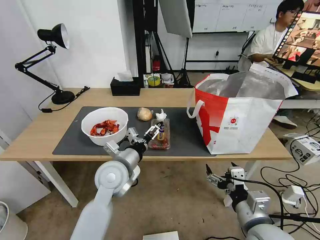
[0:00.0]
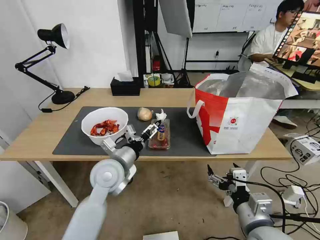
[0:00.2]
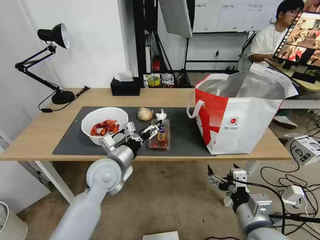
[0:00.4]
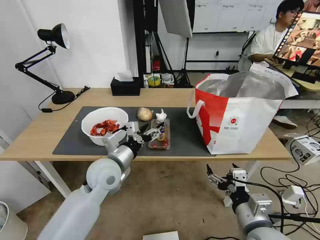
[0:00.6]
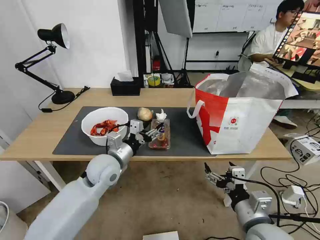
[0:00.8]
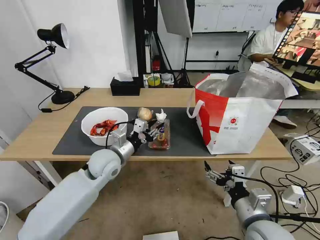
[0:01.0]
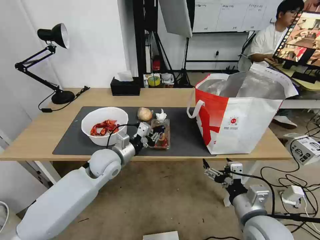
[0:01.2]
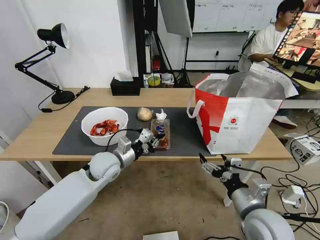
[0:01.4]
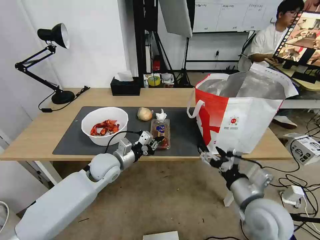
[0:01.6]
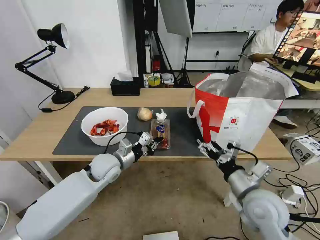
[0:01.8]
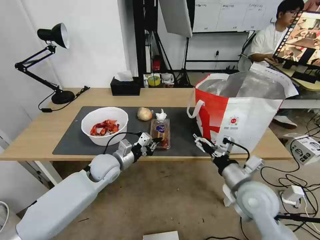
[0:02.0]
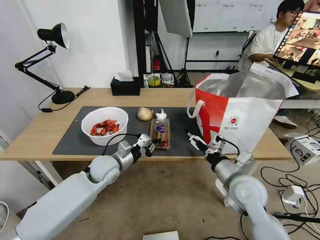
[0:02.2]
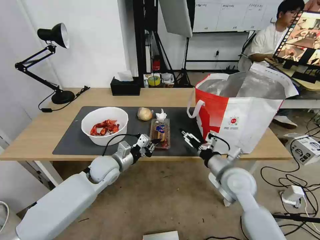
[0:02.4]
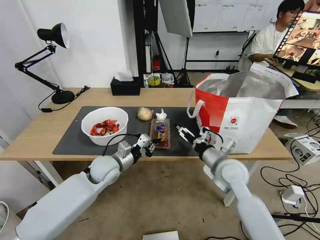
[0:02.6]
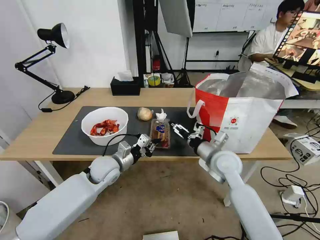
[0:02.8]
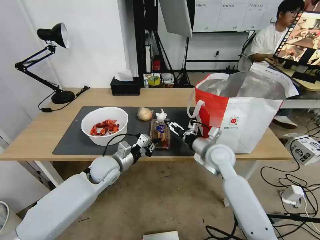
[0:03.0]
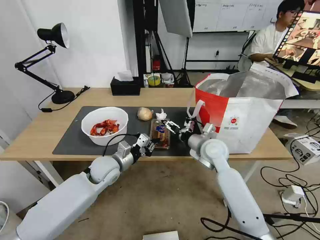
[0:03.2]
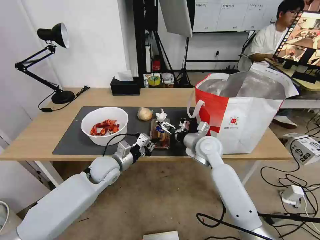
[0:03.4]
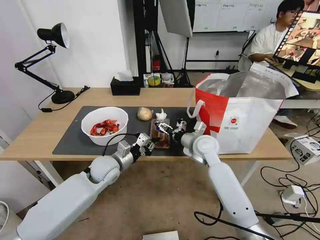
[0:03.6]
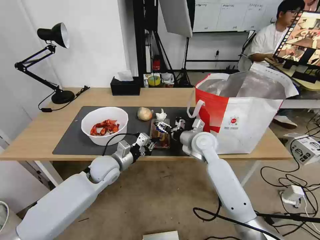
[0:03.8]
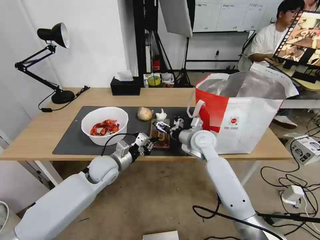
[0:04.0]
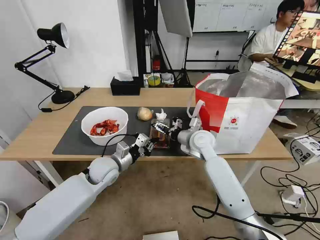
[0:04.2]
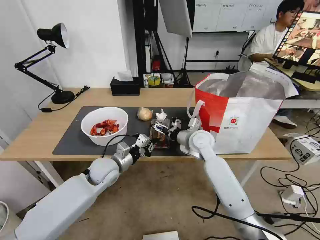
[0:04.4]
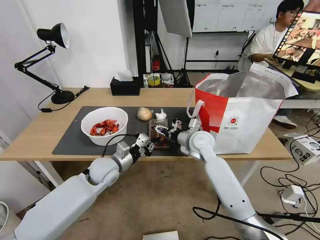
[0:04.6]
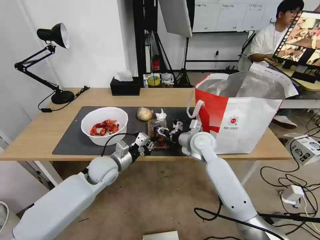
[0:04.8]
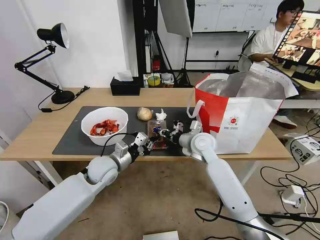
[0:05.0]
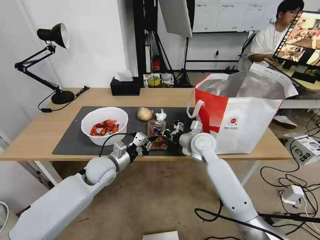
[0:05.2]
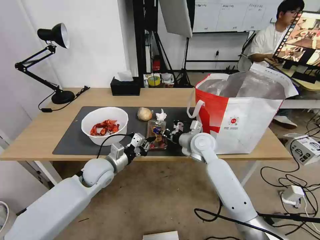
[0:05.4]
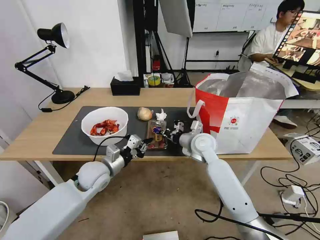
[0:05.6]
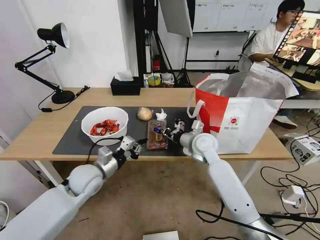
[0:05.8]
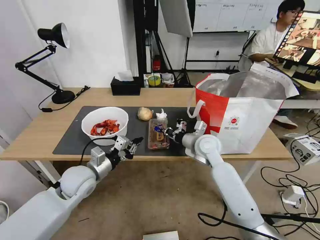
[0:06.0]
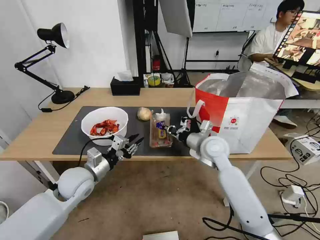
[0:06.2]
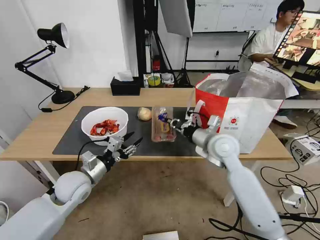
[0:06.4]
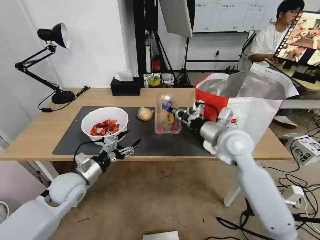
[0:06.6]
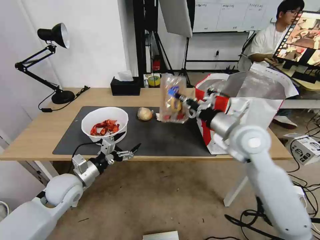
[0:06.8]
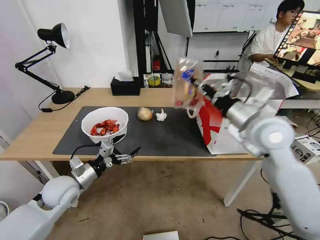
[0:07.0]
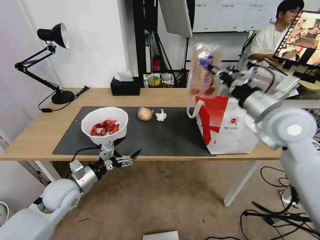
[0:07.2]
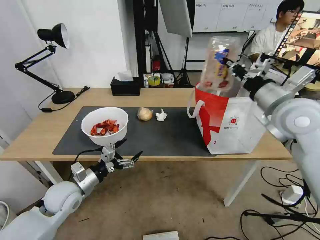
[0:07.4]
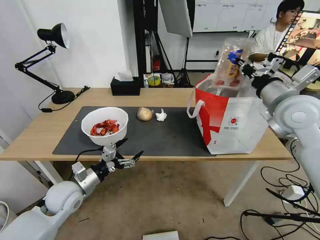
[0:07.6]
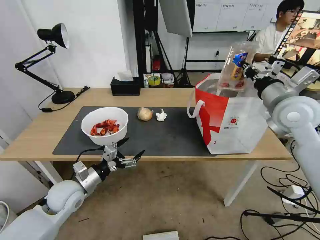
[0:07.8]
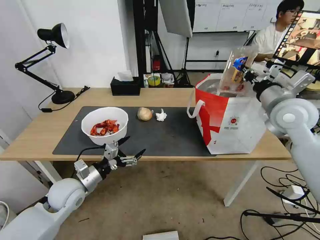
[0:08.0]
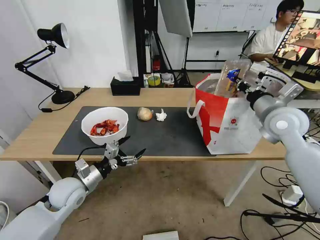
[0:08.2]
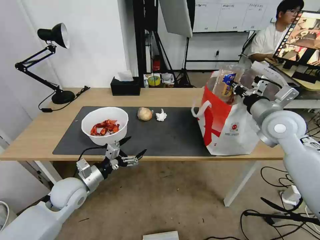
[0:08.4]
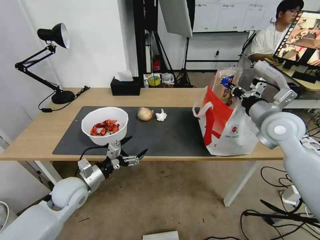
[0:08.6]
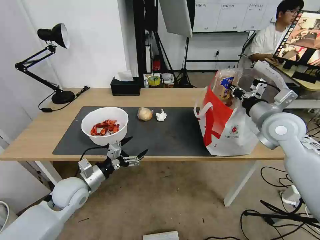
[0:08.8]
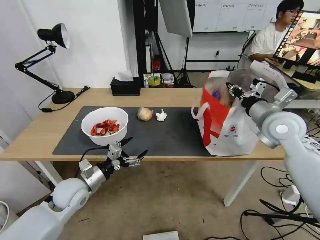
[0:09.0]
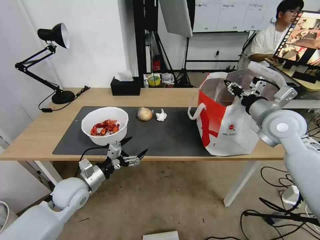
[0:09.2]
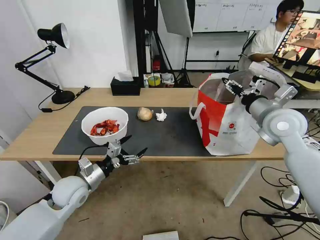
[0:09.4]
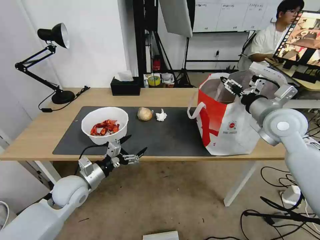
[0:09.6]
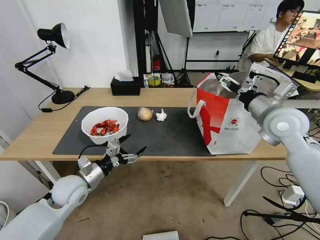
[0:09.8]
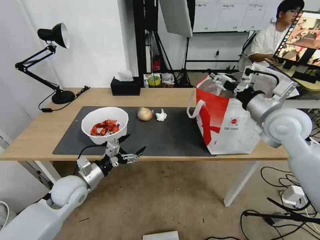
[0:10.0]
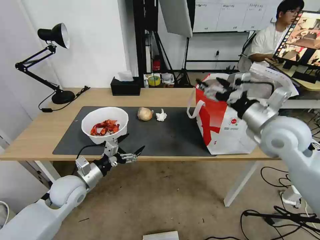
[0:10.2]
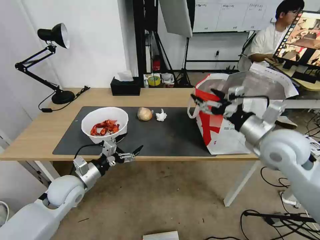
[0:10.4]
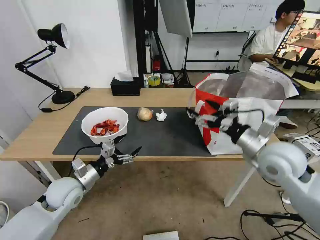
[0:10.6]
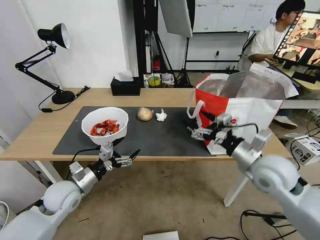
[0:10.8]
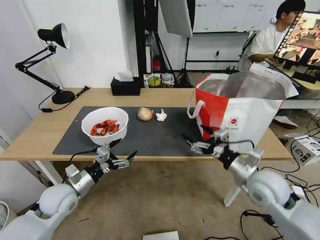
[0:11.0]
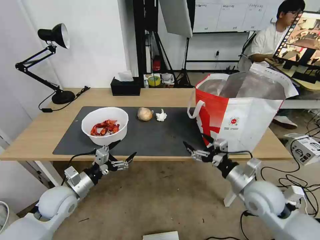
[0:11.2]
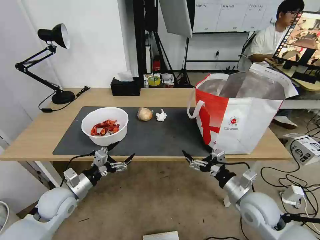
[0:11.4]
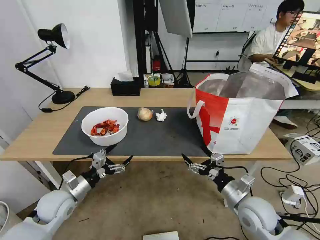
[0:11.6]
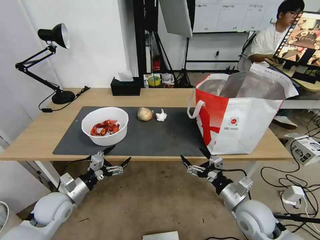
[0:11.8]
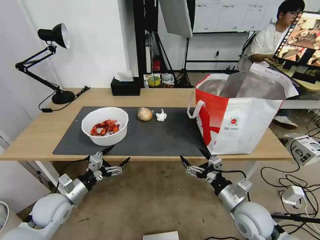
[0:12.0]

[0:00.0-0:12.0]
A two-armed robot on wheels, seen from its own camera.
Task of the whole recording: Pick up the trash from the table and place it into the takeout bag.
0:00.0 to 0:01.6: Both grippers move forward, some 5 cm. The left gripper closes.
0:01.6 to 0:03.0: The right gripper moves forward, about 20 cm.
0:03.0 to 0:04.4: The right gripper heads forward, covering about 5 cm.
0:04.4 to 0:06.0: The right gripper closes its fingers. Meanwhile the left gripper heads to the left and backward, covering some 10 cm.
0:06.0 to 0:07.6: The left gripper changes place by approximately 5 cm, and opens up. Meanwhile the right gripper goes about 25 cm upward and to the right.
0:07.6 to 0:09.0: The right gripper is displaced downward by roughly 5 cm.
0:09.0 to 0:10.4: The right gripper moves backward, about 5 cm, and opens up.
0:10.4 to 0:12.0: The right gripper moves downward and backward, some 25 cm. Meanwhile the left gripper changes place by approximately 5 cm.

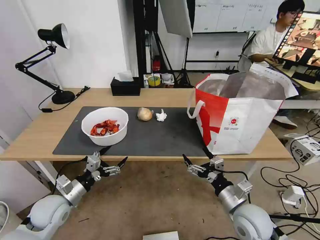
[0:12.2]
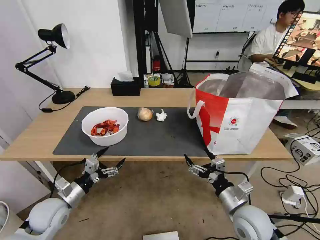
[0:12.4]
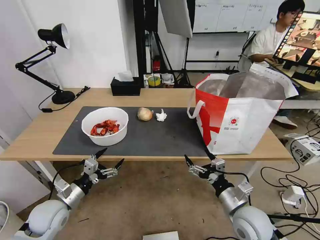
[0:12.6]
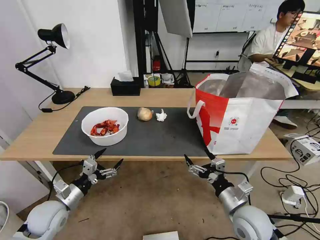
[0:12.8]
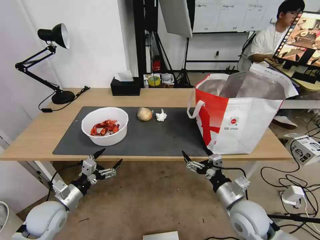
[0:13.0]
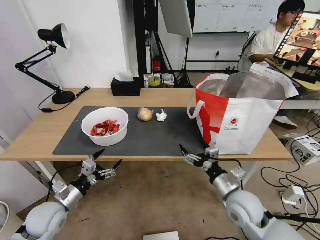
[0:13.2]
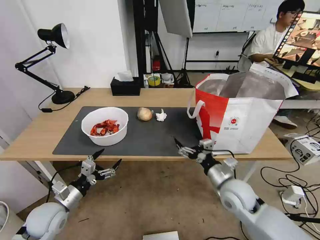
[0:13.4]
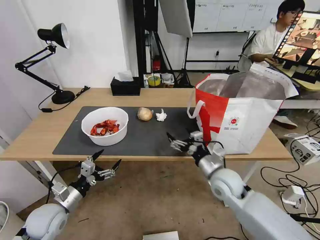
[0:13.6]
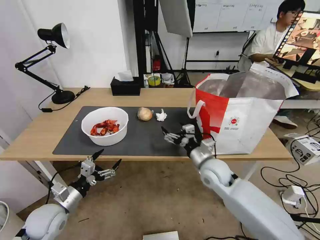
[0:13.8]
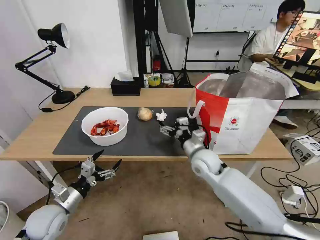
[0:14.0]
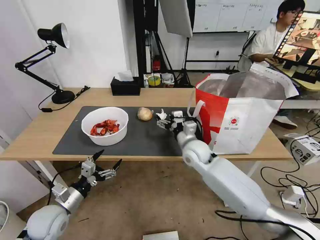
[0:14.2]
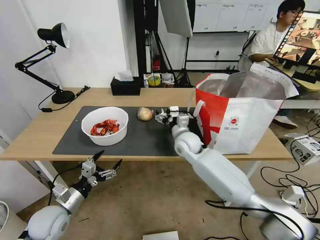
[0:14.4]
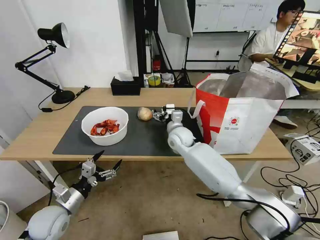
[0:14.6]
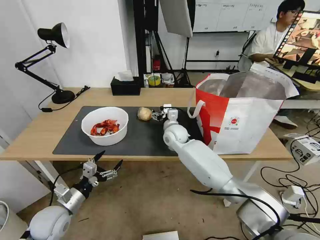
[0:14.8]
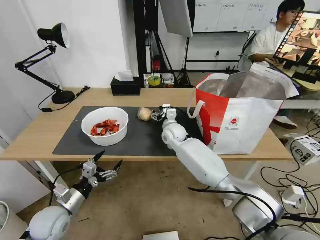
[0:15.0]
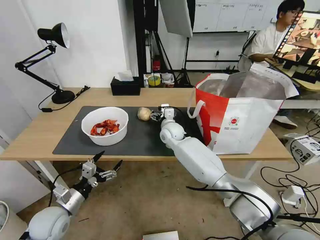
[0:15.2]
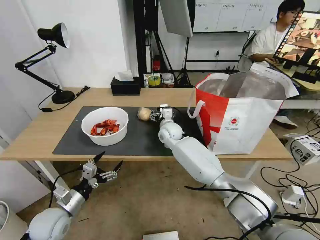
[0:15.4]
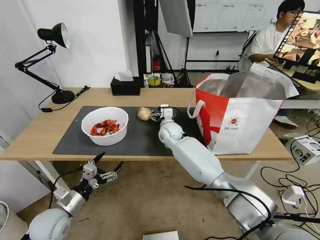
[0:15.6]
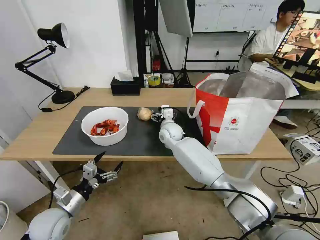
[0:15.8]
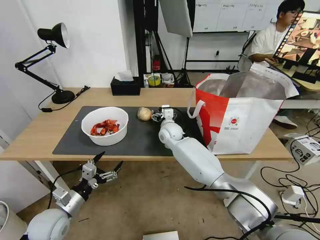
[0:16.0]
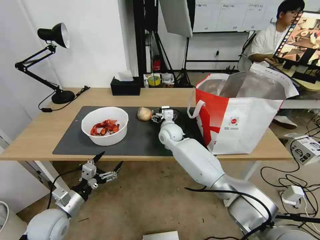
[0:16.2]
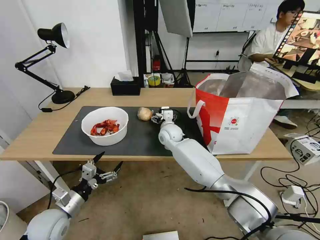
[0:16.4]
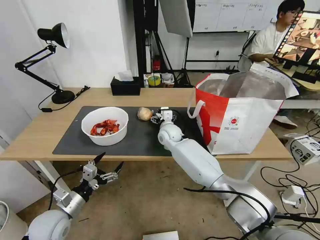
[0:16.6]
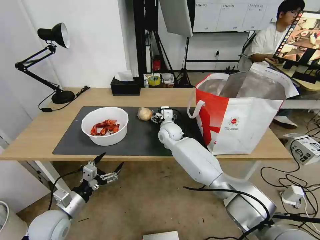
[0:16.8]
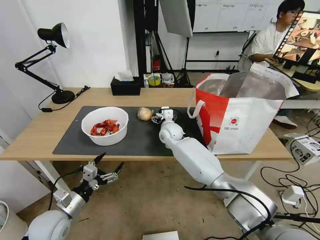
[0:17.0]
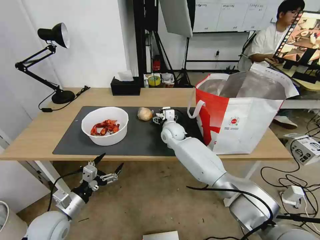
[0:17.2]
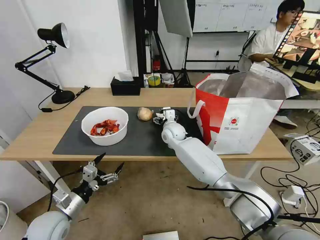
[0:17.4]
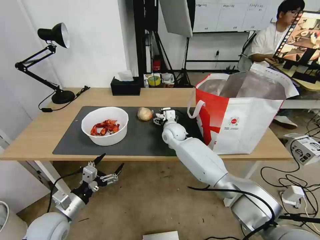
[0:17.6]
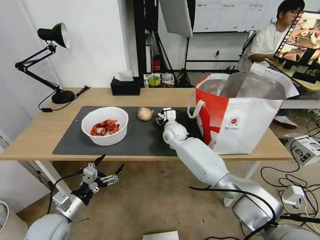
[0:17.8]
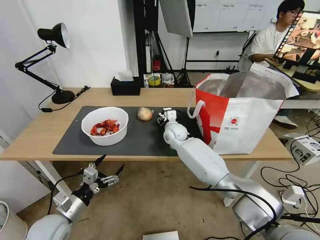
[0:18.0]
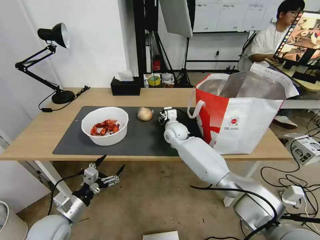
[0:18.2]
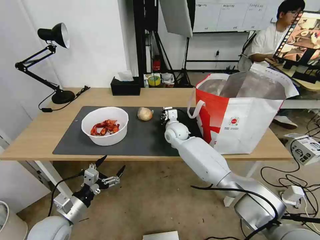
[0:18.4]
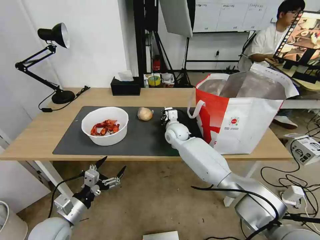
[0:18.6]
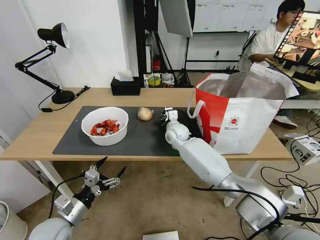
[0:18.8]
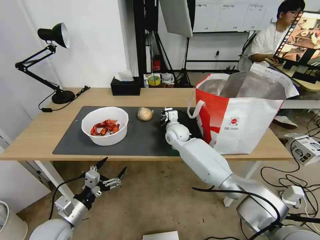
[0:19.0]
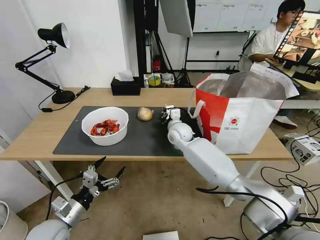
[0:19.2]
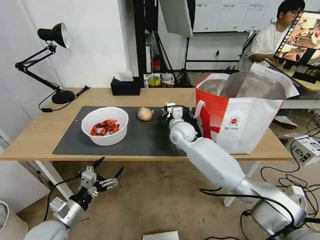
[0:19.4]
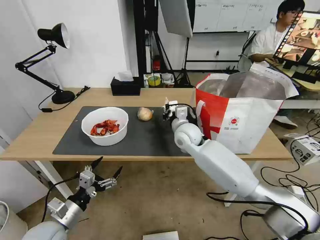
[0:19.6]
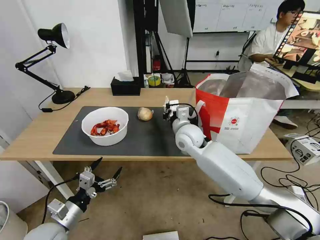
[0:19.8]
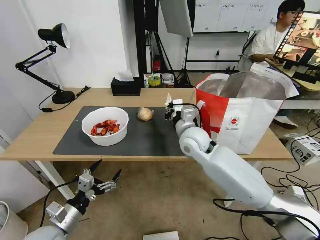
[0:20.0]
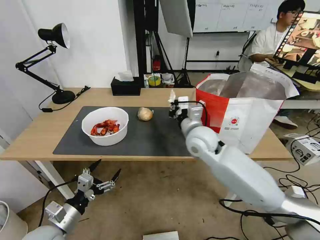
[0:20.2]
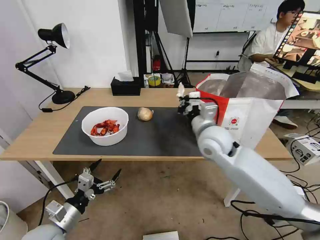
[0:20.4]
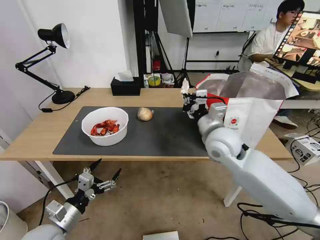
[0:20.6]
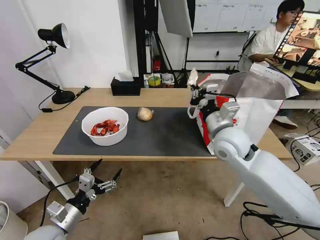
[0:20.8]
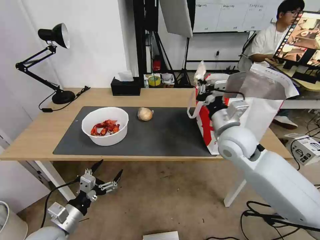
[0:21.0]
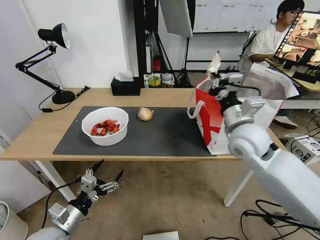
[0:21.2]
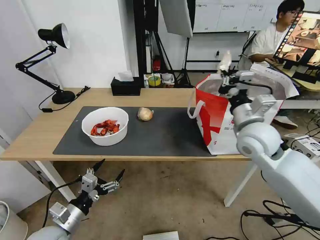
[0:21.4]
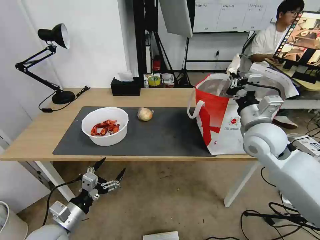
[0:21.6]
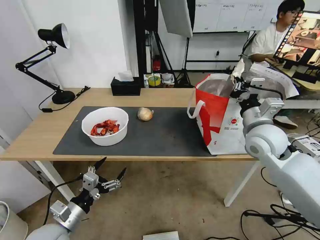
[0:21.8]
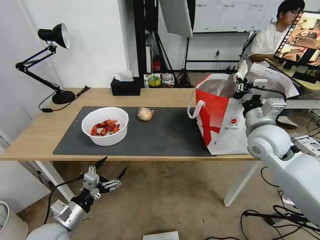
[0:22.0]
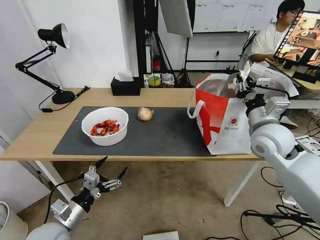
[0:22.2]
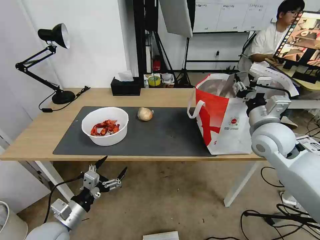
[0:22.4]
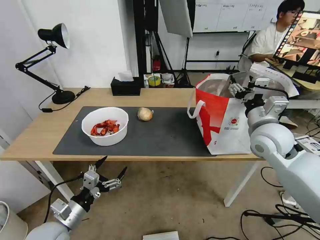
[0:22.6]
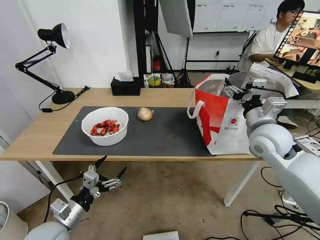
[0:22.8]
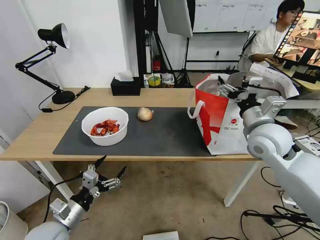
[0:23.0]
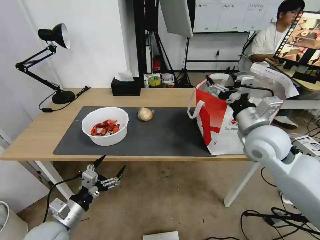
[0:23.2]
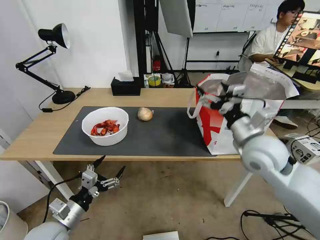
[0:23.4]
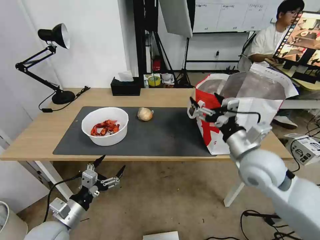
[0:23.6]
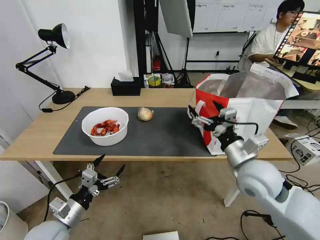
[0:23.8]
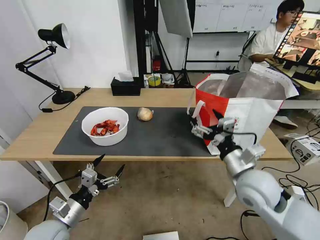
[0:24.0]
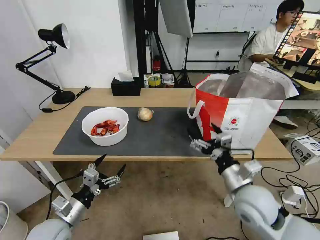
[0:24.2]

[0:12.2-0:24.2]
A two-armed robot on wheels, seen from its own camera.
Task of the whole recording: Pick up the trash from the table and place it into the takeout bag.
0:12.2 to 0:13.8: The right gripper is displaced forward and to the left by some 15 cm.
0:13.8 to 0:15.2: The right gripper heads forward and to the left, covering some 20 cm.
0:15.2 to 0:16.6: Both grippers stay put.
0:16.6 to 0:18.2: The right gripper closes up.
0:18.2 to 0:19.8: The right gripper is displaced backward and upward by approximately 10 cm, and closes.
0:19.8 to 0:21.2: The right gripper heads to the right, upward and backward, covering some 15 cm.
0:21.2 to 0:22.6: The right gripper is displaced to the right by approximately 5 cm, and opens its fingers.
0:22.6 to 0:24.2: The right gripper travels backward, downward and to the left by roughly 20 cm.
